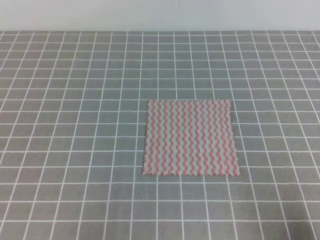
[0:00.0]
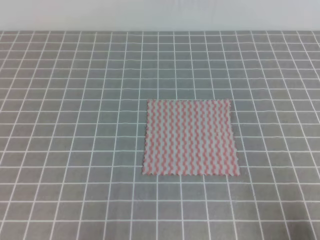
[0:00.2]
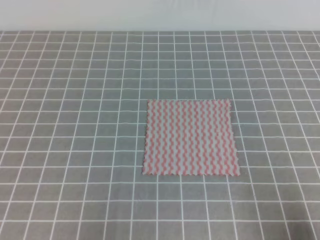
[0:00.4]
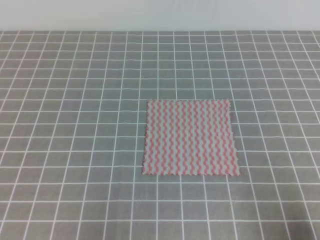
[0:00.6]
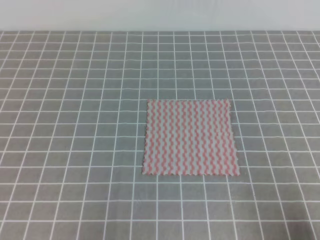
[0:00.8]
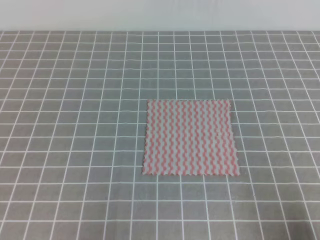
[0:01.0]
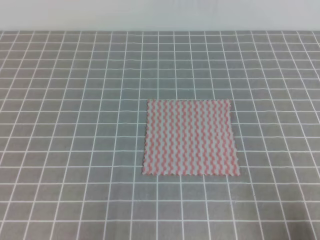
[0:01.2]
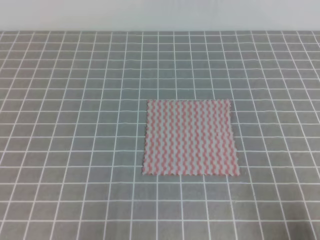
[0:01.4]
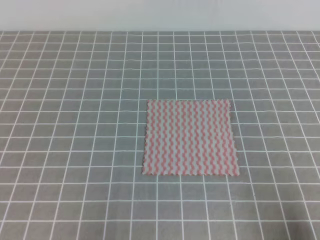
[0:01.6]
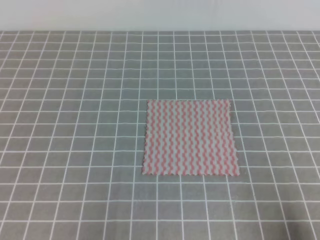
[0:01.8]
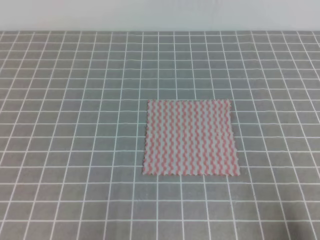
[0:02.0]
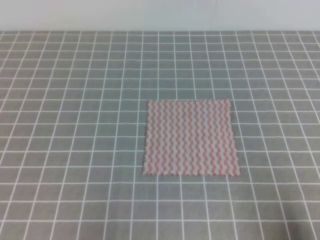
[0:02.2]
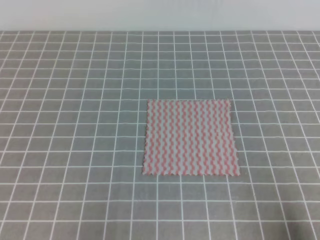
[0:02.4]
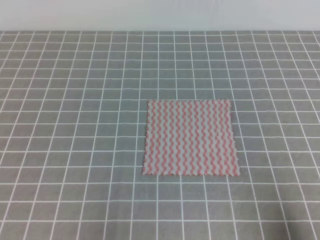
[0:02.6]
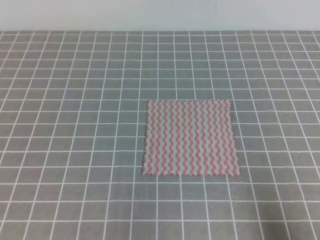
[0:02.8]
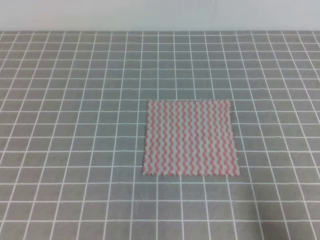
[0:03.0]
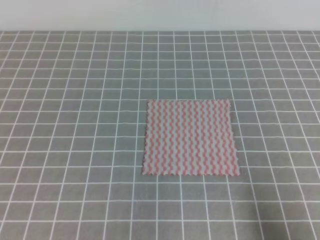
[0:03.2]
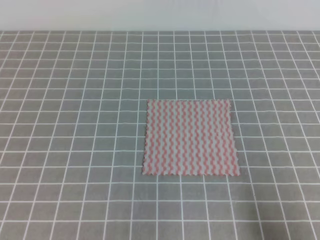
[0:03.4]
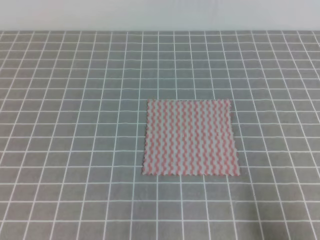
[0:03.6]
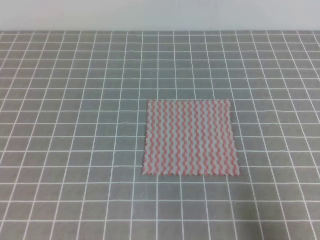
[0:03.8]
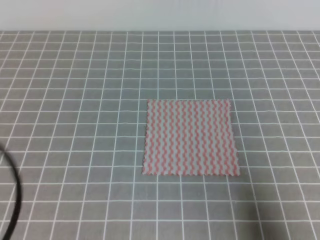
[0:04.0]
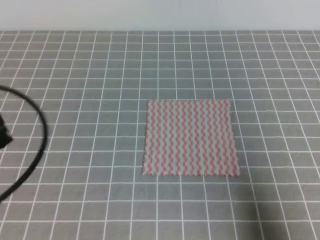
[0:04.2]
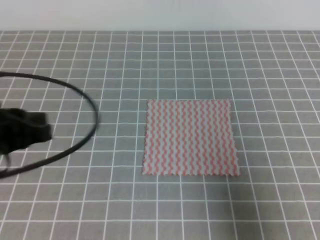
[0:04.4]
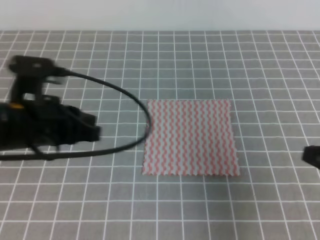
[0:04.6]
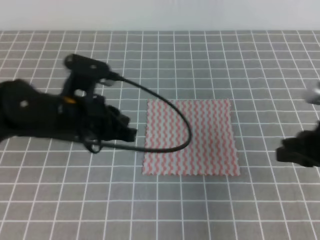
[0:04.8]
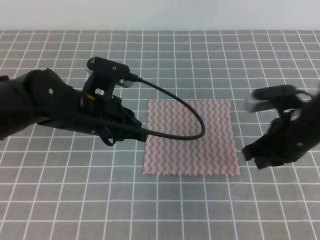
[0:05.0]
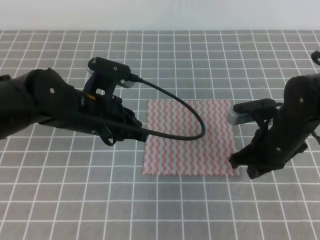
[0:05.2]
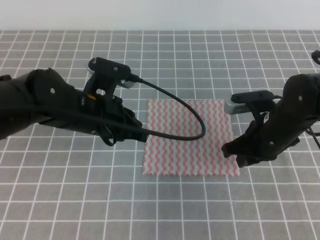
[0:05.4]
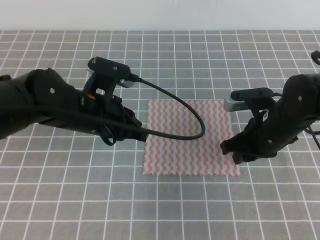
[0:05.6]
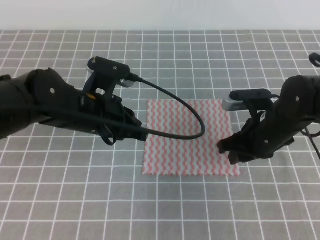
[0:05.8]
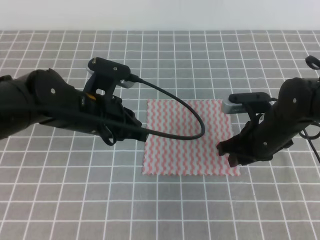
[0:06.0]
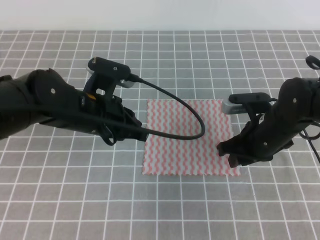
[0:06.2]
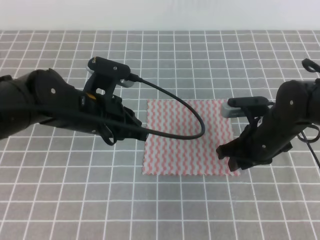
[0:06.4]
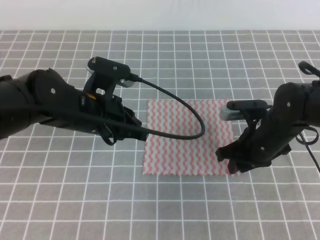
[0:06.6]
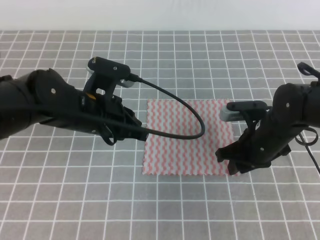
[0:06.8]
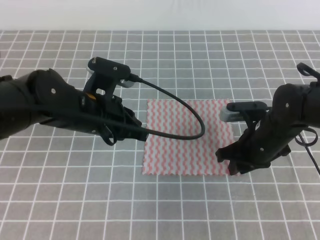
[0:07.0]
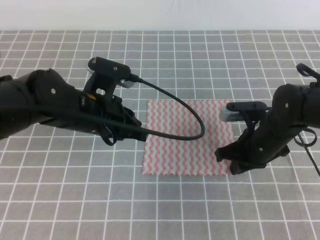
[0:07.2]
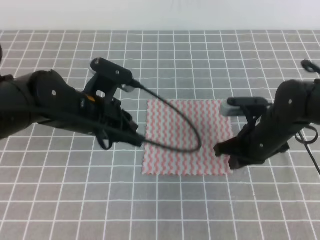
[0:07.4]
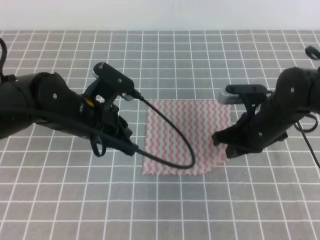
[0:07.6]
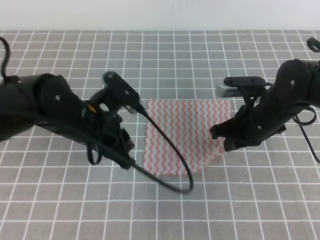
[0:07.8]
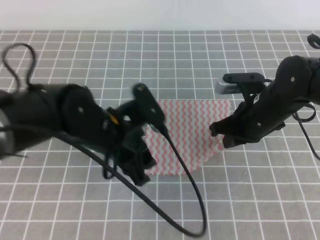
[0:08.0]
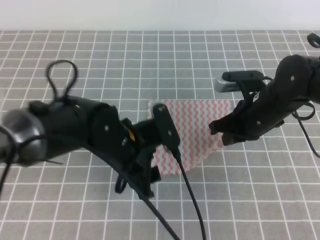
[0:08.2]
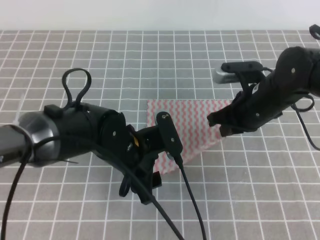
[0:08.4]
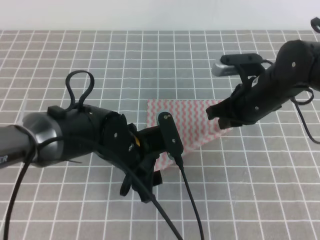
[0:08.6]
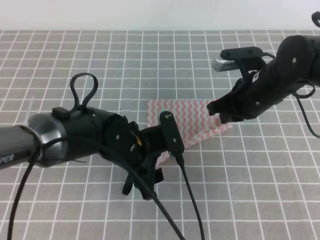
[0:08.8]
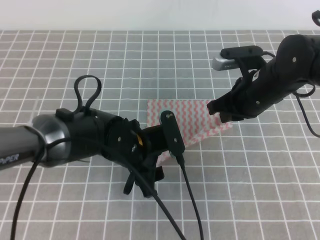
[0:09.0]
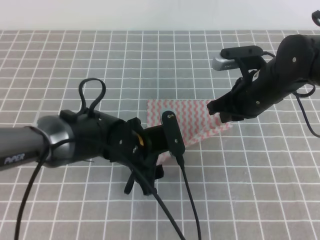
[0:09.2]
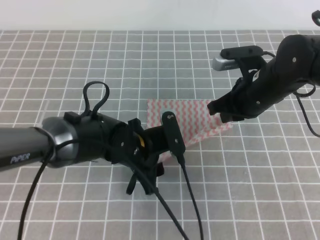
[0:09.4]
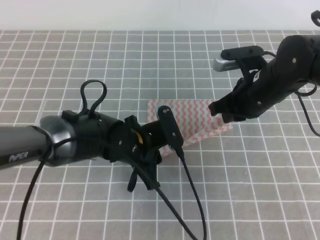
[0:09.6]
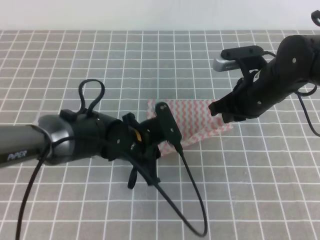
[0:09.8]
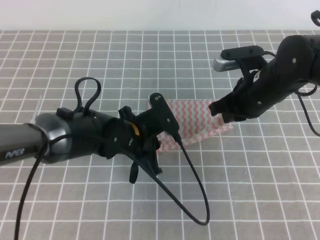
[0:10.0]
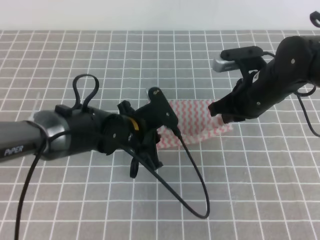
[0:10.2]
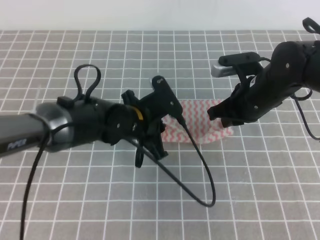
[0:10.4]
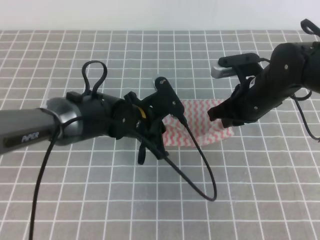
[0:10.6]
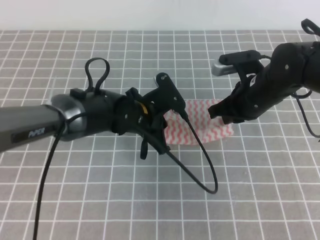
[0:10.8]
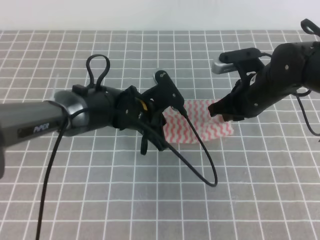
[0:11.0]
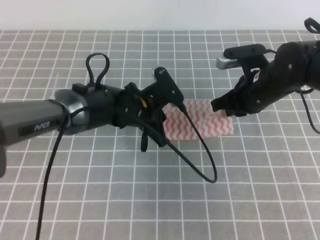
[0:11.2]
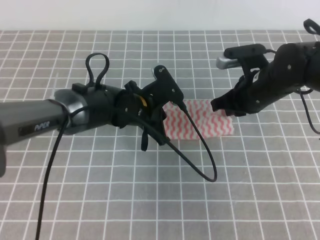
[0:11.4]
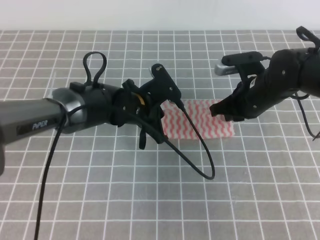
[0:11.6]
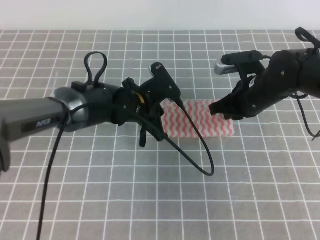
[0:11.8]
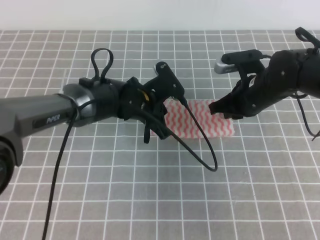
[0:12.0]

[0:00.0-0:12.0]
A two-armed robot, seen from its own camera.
Step, 0:00.0 to 0:08.8: Fold the towel upwards with the both gripper.
Step, 0:09.0 to 0:12.0: Fold the towel from right to left with the right gripper.
0:00.0 to 0:01.6: Neither gripper changes place.
0:03.0 to 0:04.4: The right gripper moves upward and forward, approximately 10 cm, while the left gripper is displaced forward and upward by approximately 15 cm.
0:04.4 to 0:06.0: The left gripper goes approximately 15 cm to the right and forward. The right gripper moves forward and to the left, some 25 cm, and opens.
0:06.0 to 0:07.6: The right gripper closes.
0:07.6 to 0:09.0: The left gripper travels downward and to the right by roughly 10 cm, and opens its fingers; the right gripper heads upward, covering roughly 5 cm.
0:09.0 to 0:10.4: The left gripper closes.
0:10.4 to 0:12.0: The left gripper travels forward by roughly 5 cm.

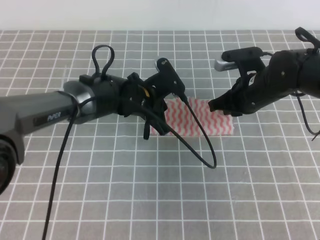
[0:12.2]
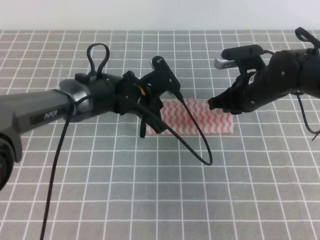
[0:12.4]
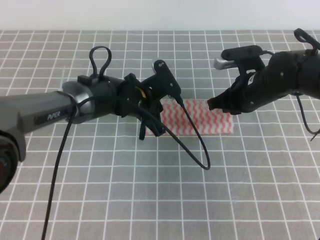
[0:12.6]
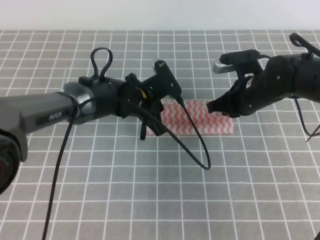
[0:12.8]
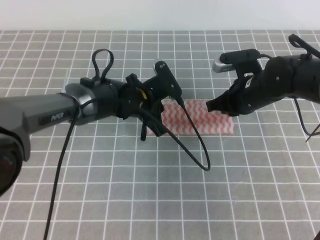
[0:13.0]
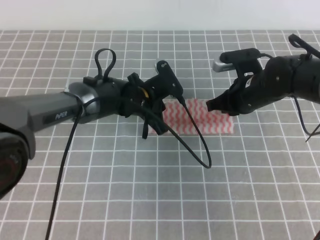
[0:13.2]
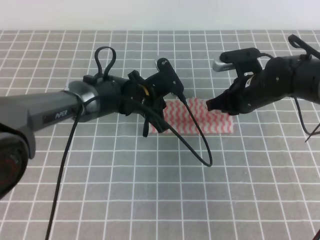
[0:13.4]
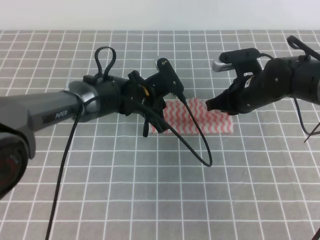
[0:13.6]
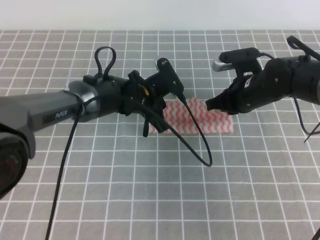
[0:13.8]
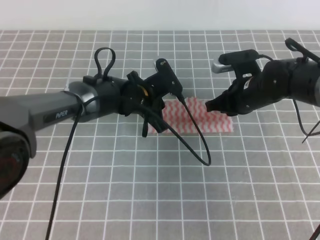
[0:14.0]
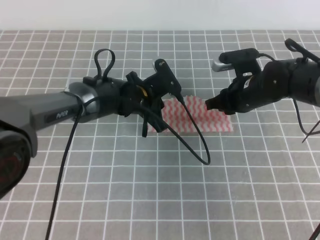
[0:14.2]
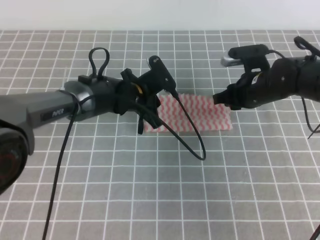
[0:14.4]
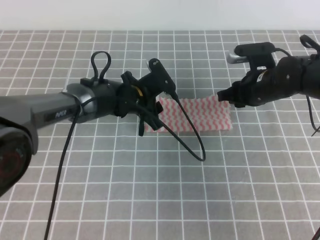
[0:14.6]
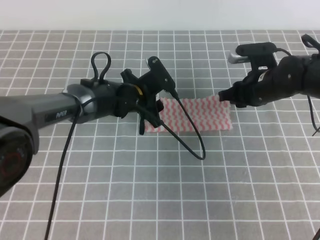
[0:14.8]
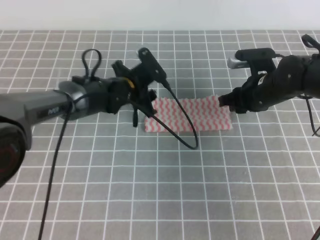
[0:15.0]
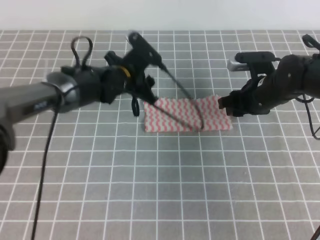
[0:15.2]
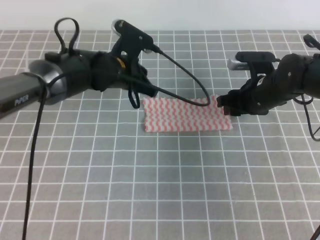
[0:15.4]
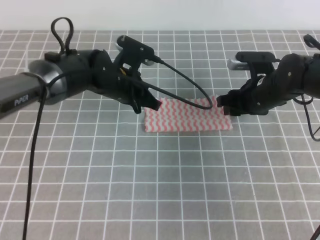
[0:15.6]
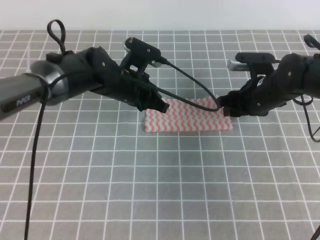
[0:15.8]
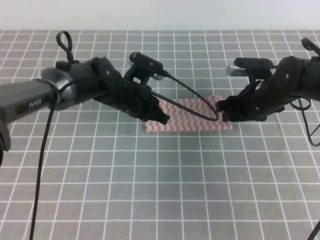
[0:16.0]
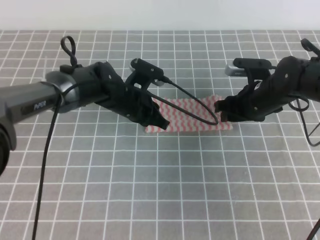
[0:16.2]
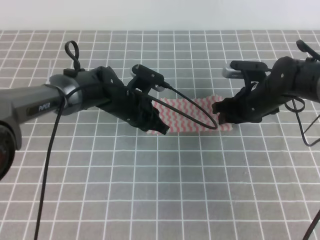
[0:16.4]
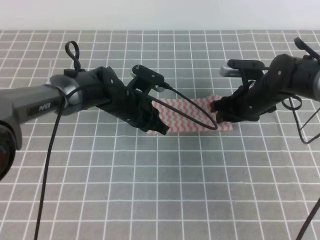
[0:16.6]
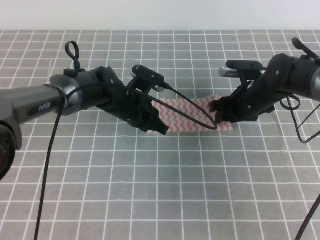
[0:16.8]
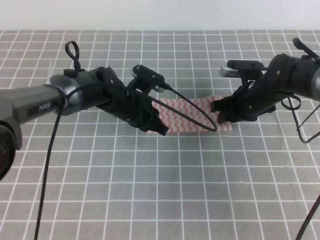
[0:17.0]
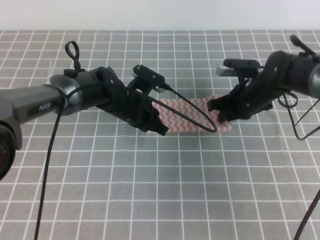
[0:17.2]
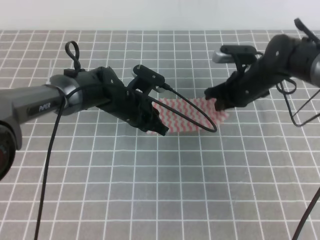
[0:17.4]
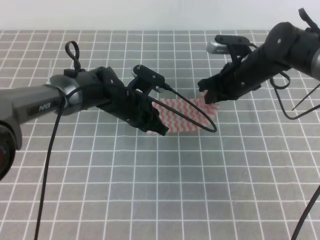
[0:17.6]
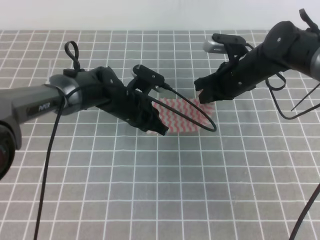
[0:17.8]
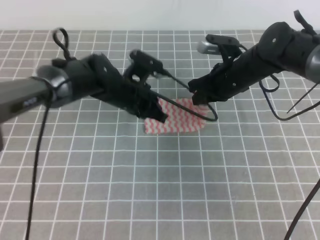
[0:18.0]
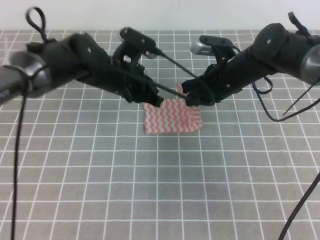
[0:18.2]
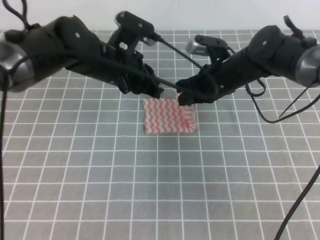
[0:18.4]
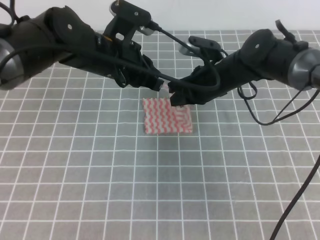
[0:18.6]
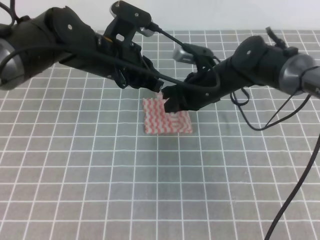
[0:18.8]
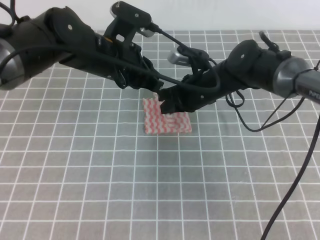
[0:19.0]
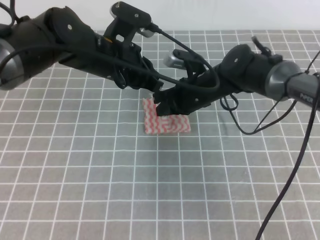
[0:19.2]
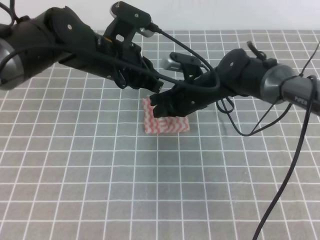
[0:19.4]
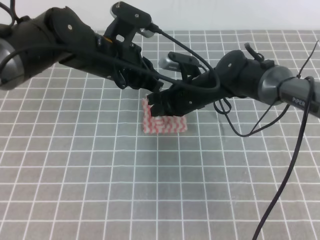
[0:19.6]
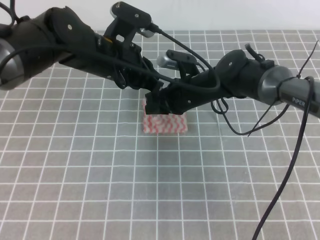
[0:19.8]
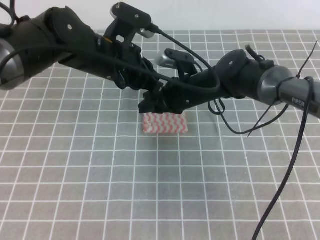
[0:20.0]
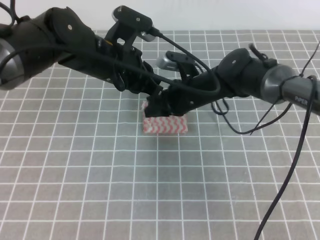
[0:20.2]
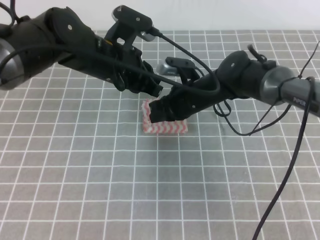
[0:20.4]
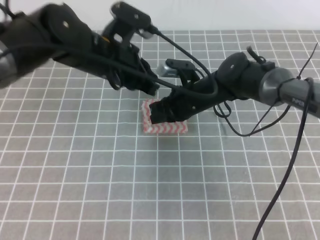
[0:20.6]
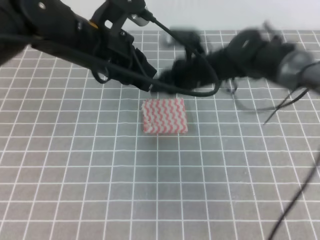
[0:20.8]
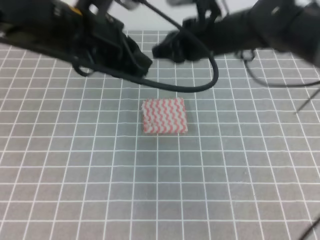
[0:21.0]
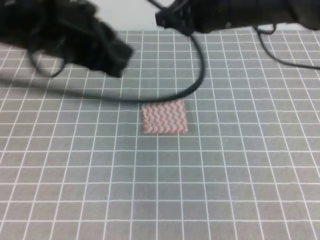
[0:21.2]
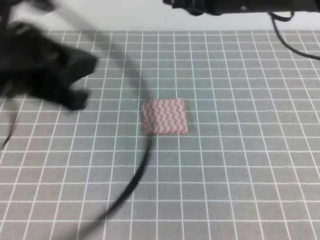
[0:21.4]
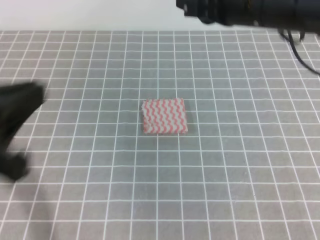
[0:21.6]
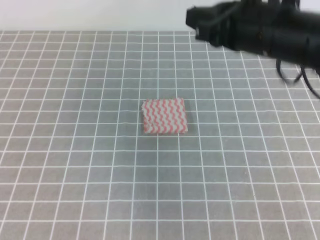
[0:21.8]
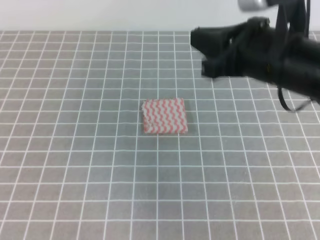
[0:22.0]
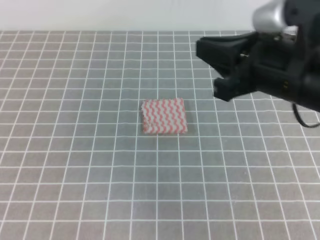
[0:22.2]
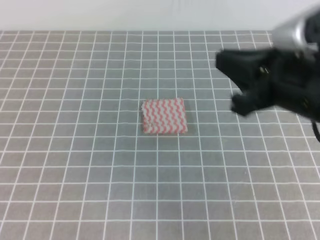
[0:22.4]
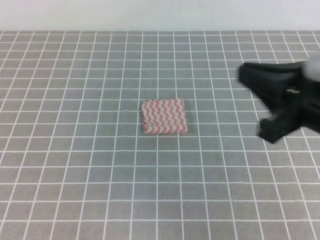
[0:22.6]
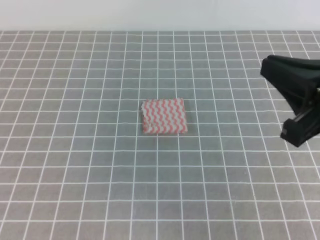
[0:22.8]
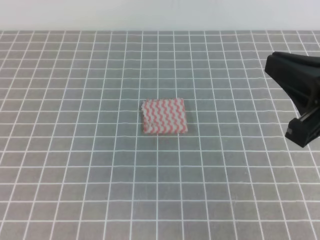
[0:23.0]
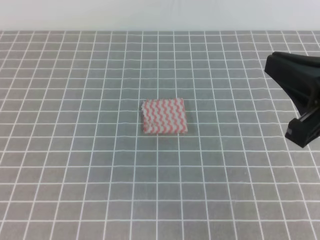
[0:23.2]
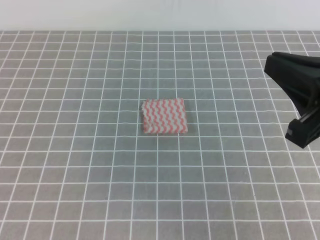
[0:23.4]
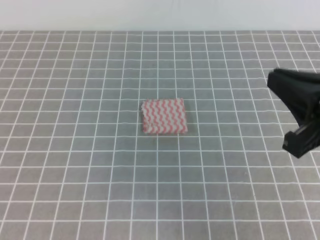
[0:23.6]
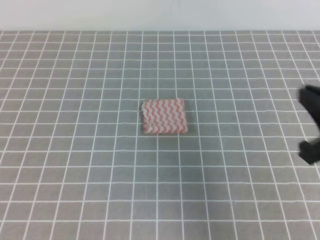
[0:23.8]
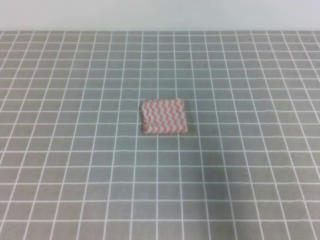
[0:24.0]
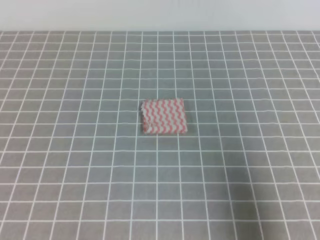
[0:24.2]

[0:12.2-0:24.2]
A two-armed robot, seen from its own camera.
0:12.2 to 0:13.8: The grippers make only small movements.
0:13.8 to 0:15.2: The left gripper ends up some 5 cm from where it was, and opens, while the right gripper opens up.
0:15.2 to 0:16.6: The left gripper moves roughly 5 cm, and closes.
0:16.6 to 0:18.2: The right gripper moves upward and to the left, about 5 cm, and closes its fingers. Meanwhile the left gripper goes approximately 5 cm upward.
0:18.2 to 0:19.8: The left gripper travels upward by approximately 5 cm, while the right gripper shifts roughly 5 cm to the left, and opens its fingers.
0:19.8 to 0:21.2: The right gripper is displaced upward by about 20 cm, and closes. The left gripper moves backward, upward and to the left, some 15 cm.
0:21.2 to 0:22.6: The left gripper heads backward and to the left, covering some 25 cm. Meanwhile the right gripper shifts approximately 20 cm backward and to the right.
0:22.6 to 0:24.2: The right gripper shifts roughly 15 cm to the right, backward and downward.
